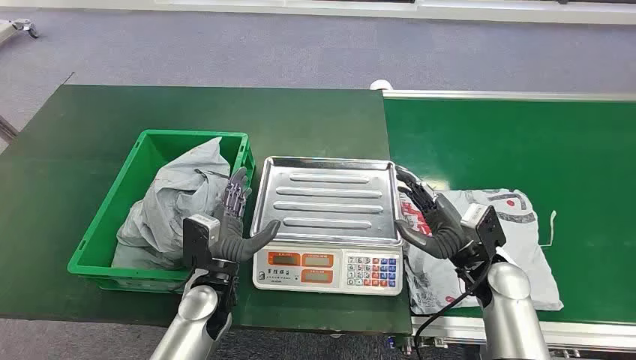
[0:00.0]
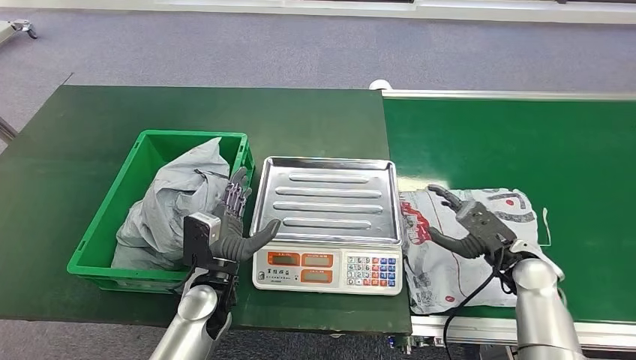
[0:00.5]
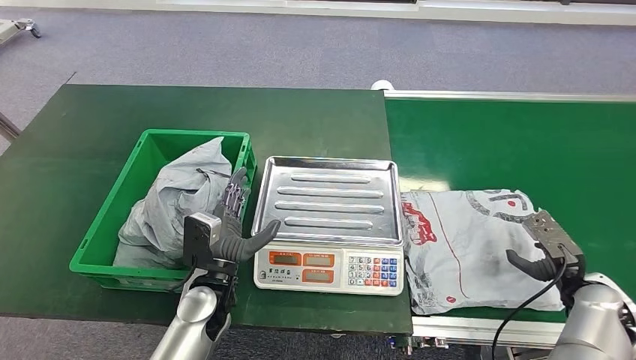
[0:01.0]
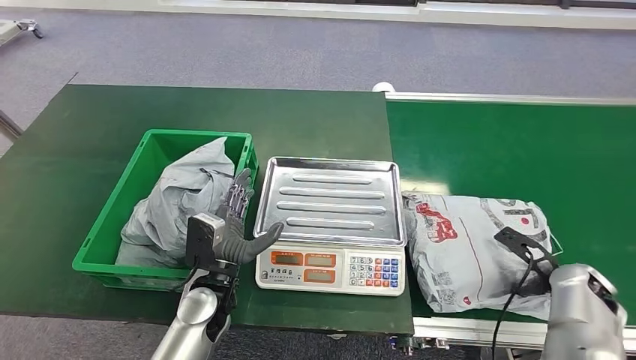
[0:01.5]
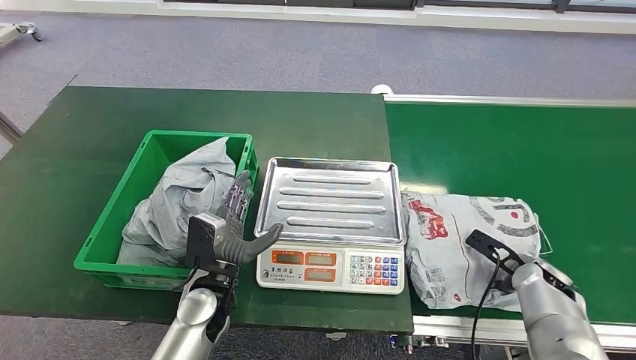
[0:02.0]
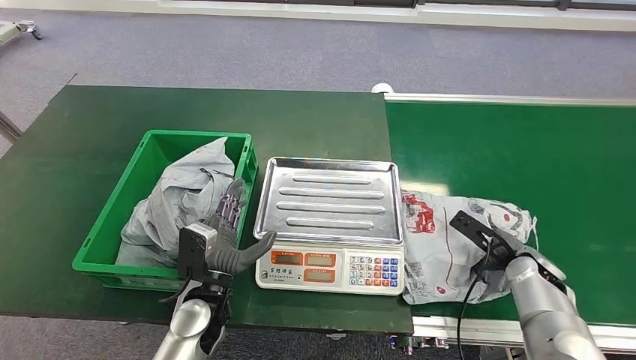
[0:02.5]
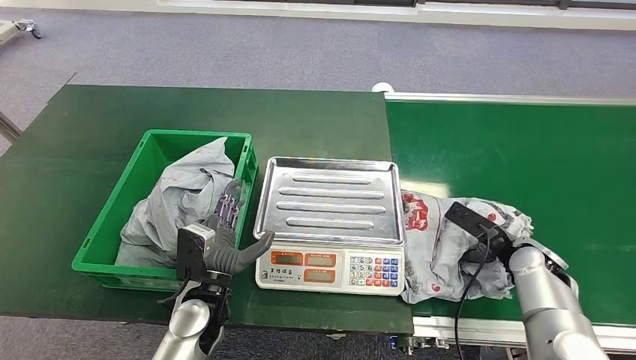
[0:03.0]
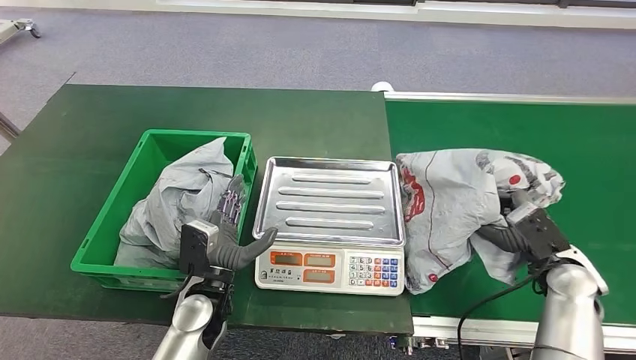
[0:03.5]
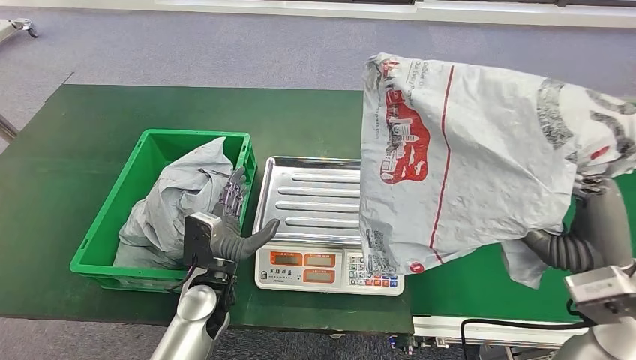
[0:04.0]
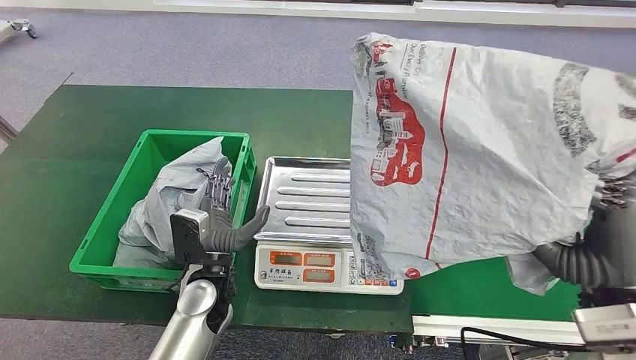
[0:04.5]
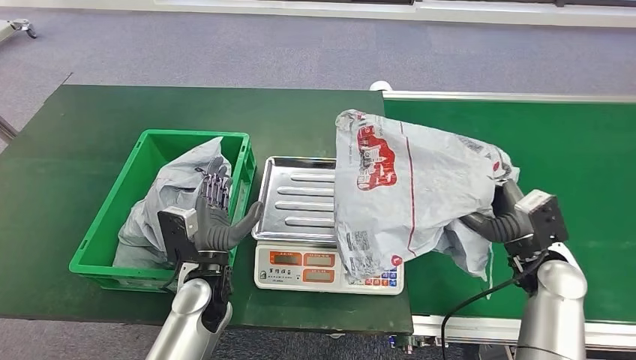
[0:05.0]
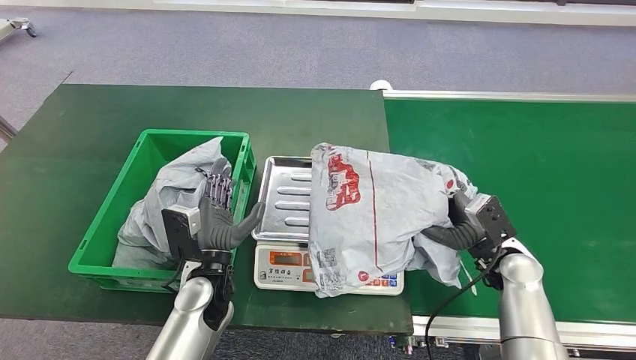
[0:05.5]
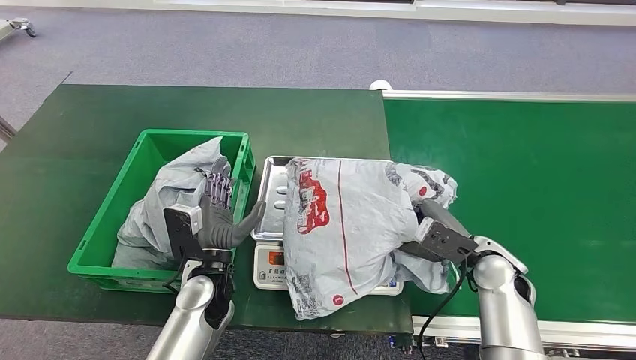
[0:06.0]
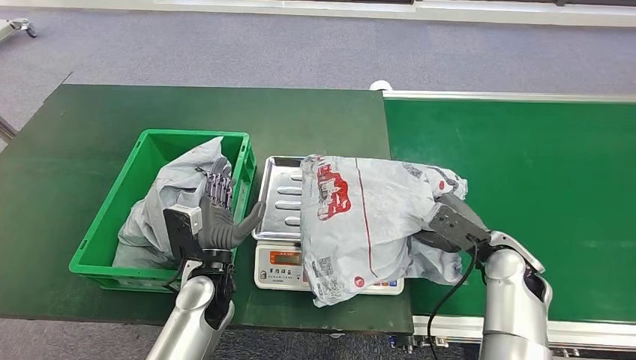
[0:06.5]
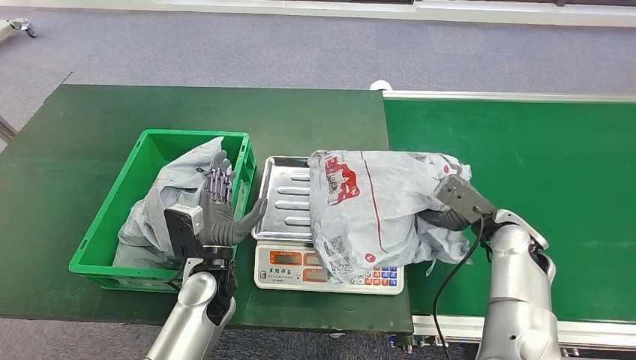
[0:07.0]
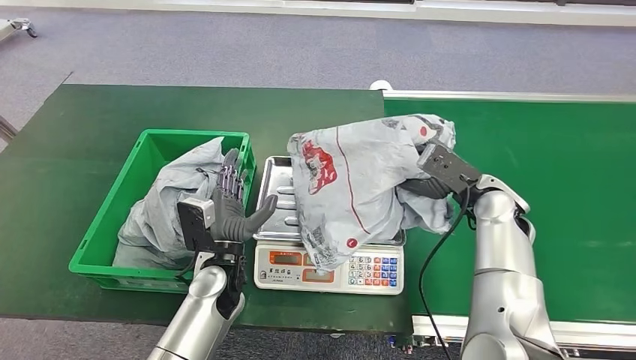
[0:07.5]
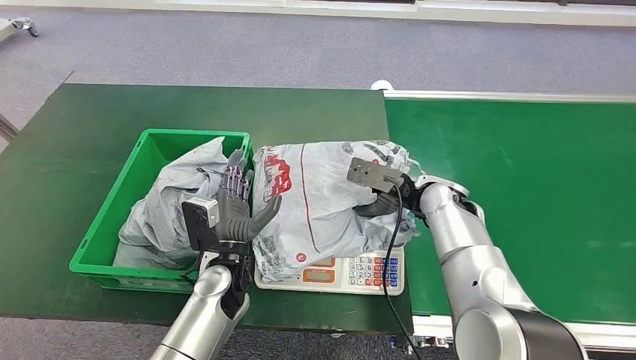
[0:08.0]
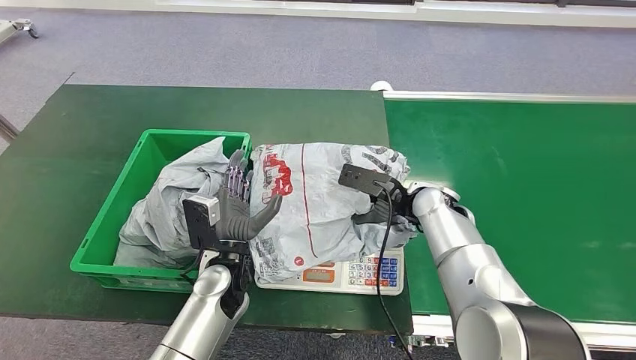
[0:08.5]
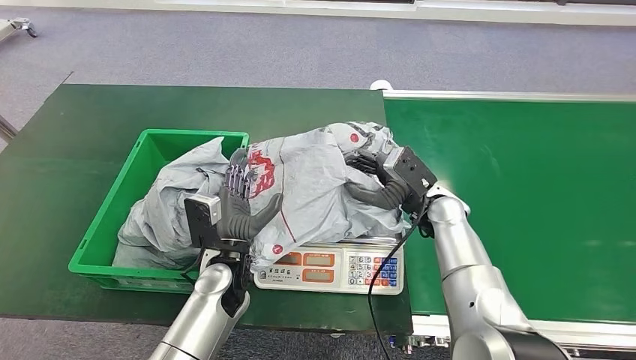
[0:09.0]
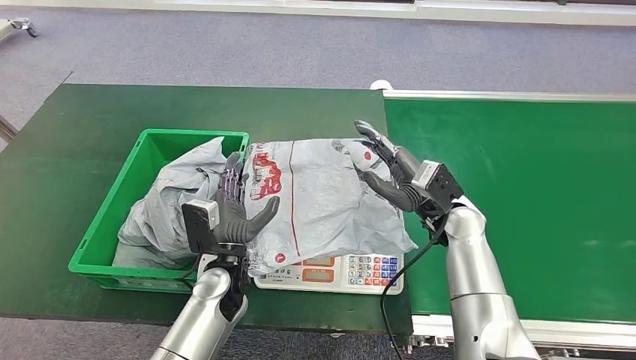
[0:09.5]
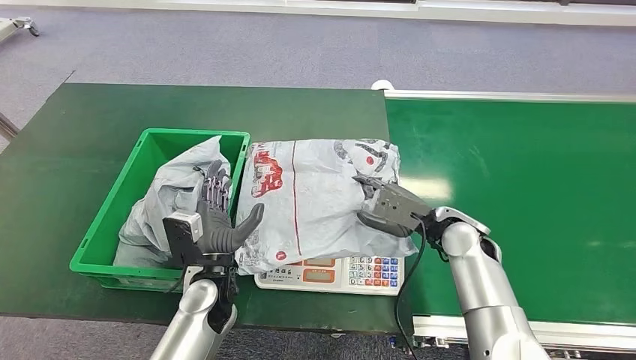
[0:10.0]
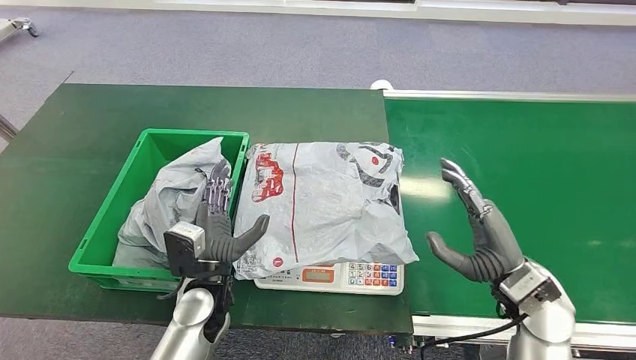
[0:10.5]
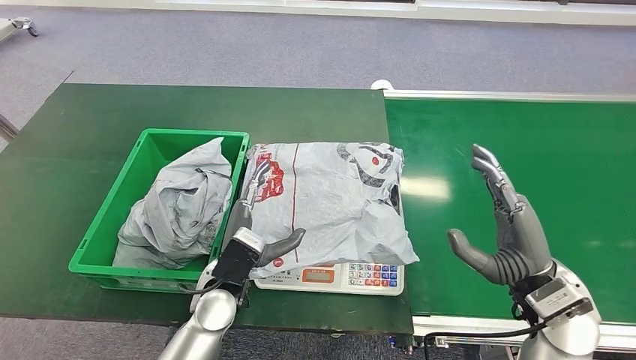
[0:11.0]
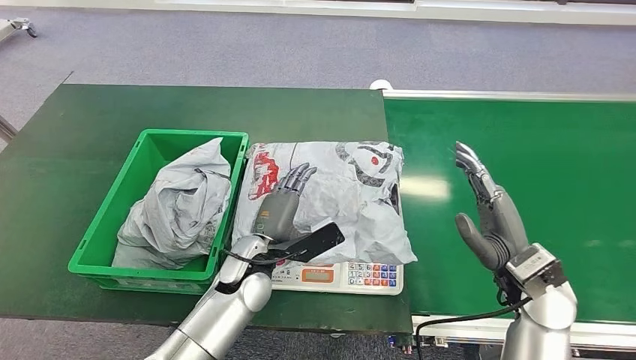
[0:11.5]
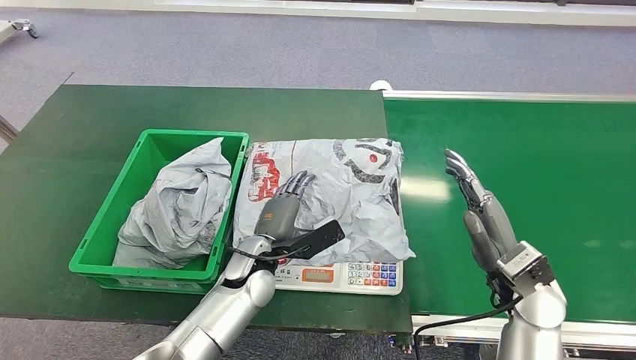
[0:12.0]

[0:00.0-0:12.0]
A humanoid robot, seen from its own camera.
Step, 0:00.0 to 0:04.5: Pick up the package from the conveyor belt.
Step, 0:05.0 to 0:11.0: Place the package onto the inbound machine.
0:08.0 to 0:10.0: The right hand travels backward by some 5 cm.
0:10.0 to 0:12.0: The left hand changes place by about 5 cm; the right hand is displaced backward and to the right by roughly 10 cm.

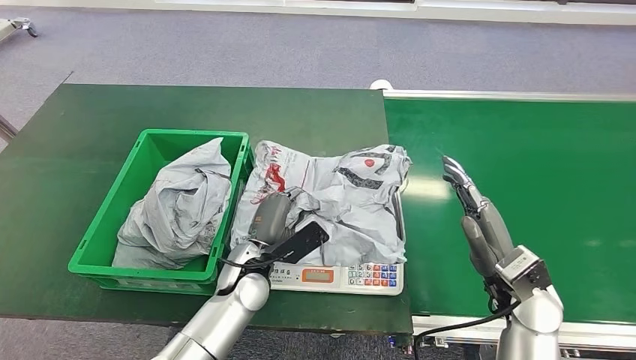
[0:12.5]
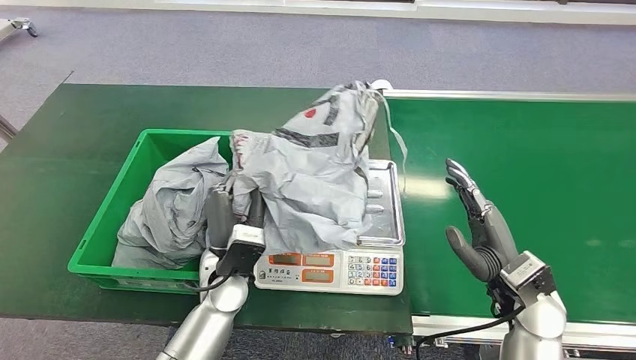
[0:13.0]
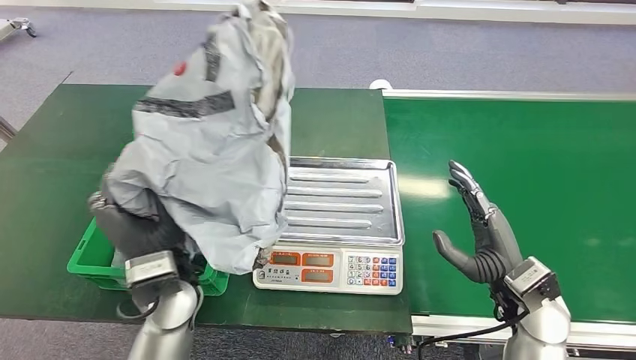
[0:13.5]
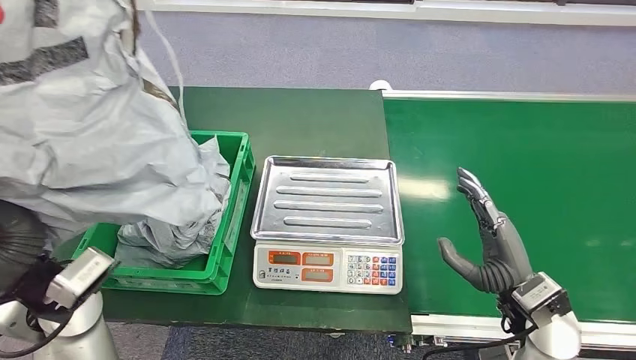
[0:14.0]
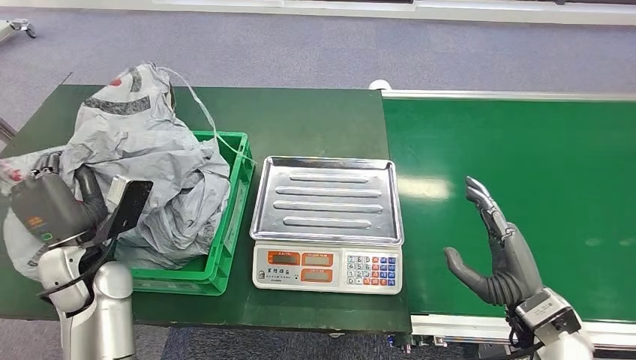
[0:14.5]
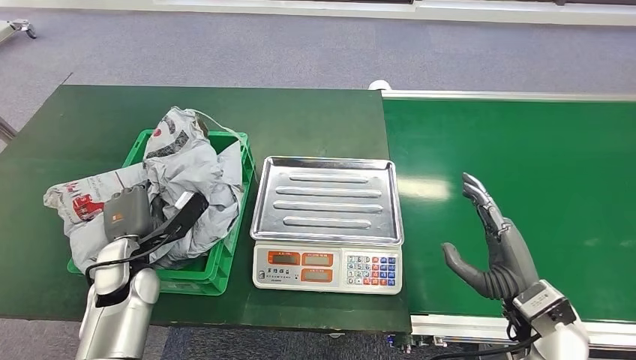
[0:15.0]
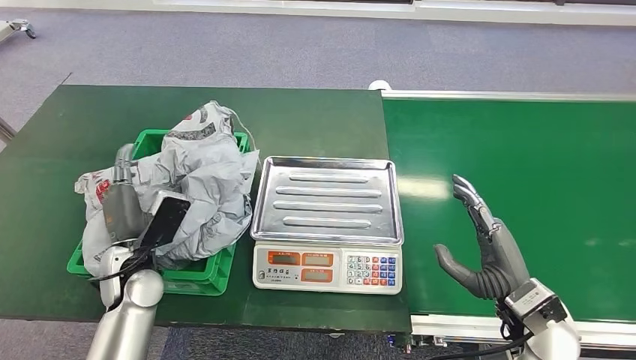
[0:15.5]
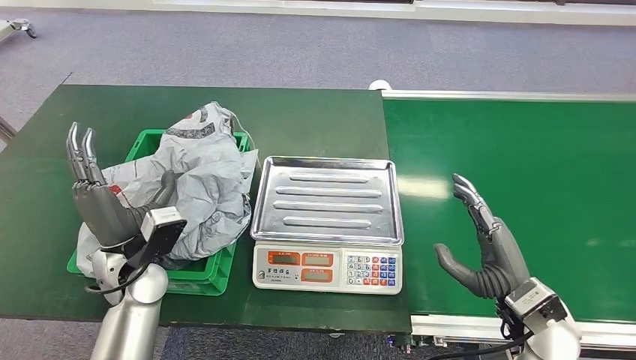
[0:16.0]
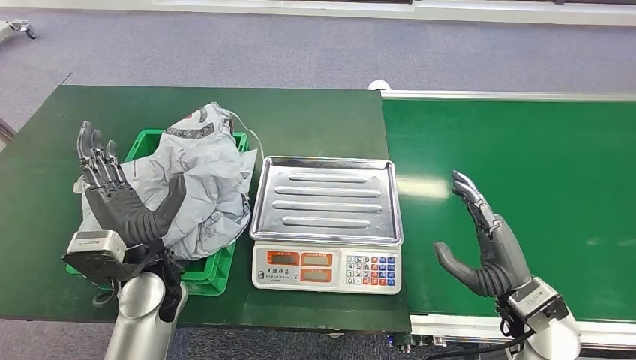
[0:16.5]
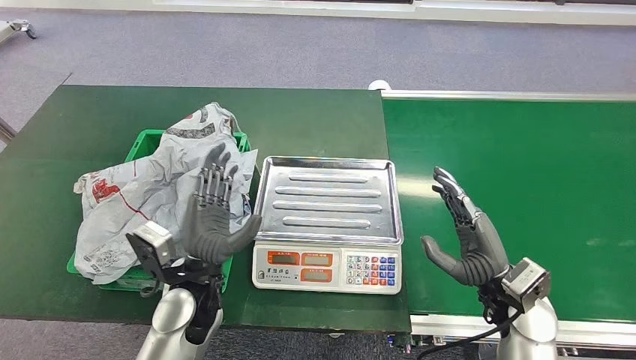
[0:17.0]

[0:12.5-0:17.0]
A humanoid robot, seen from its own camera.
Step, 0:12.5 to 0:14.0: Pick up the package from the inbound machine.
Step, 0:14.5 to 0:17.0: Place the package into the parcel locker.
